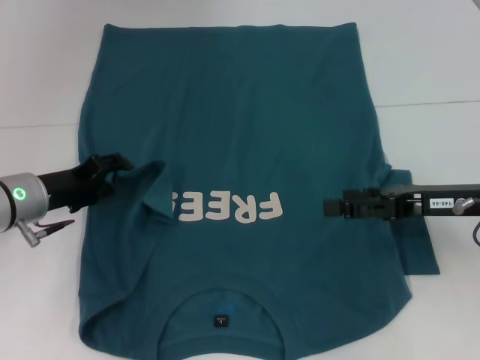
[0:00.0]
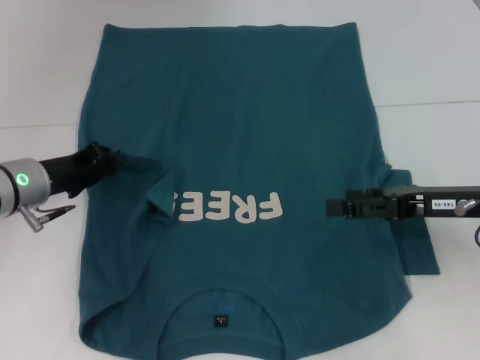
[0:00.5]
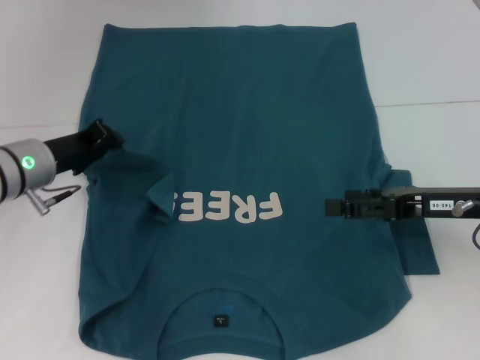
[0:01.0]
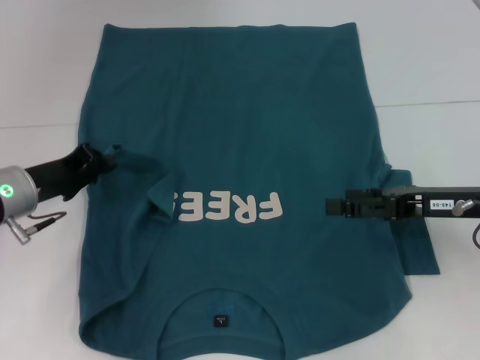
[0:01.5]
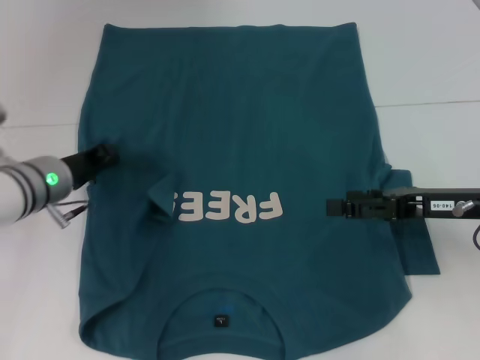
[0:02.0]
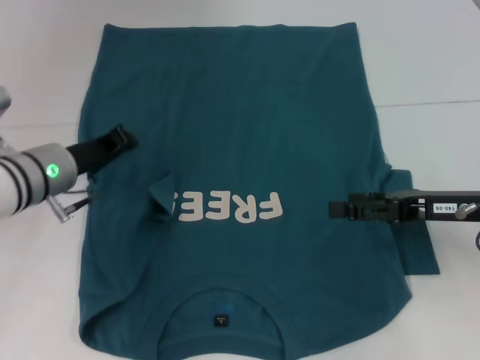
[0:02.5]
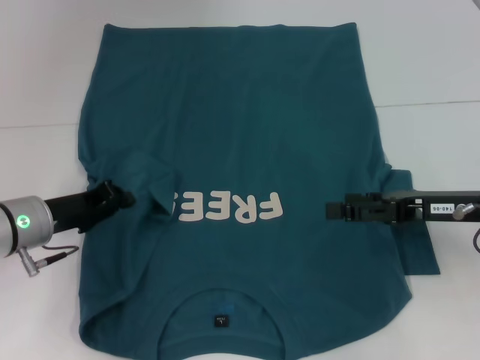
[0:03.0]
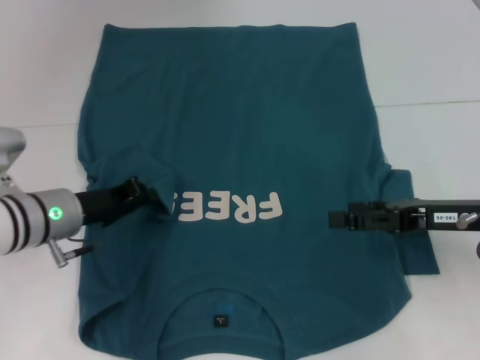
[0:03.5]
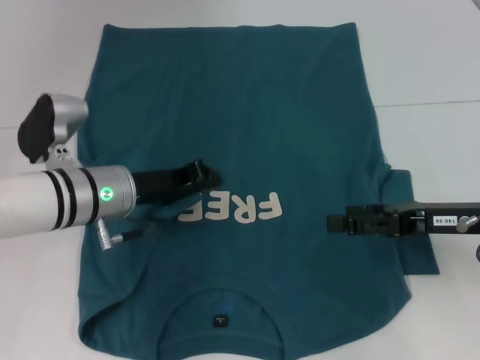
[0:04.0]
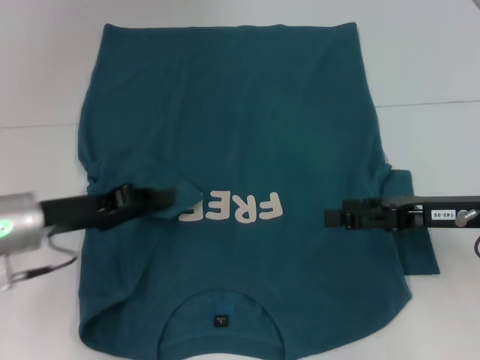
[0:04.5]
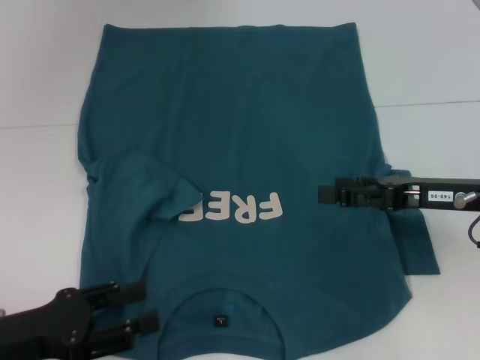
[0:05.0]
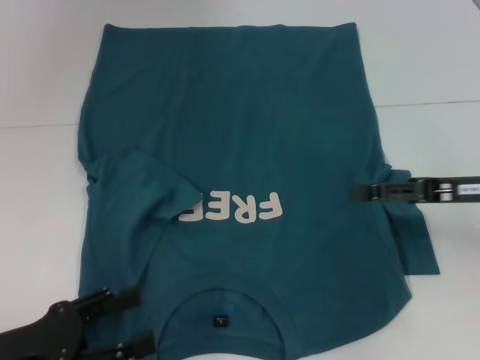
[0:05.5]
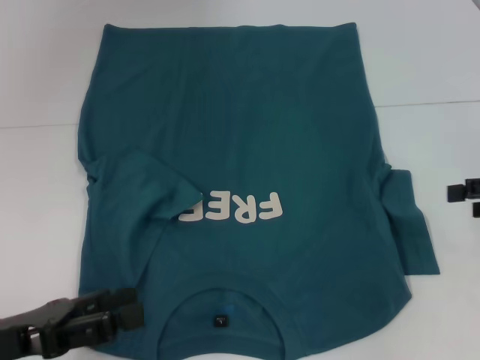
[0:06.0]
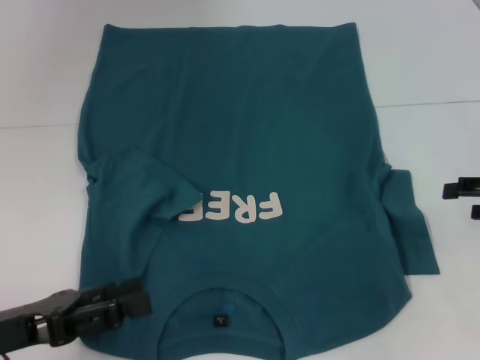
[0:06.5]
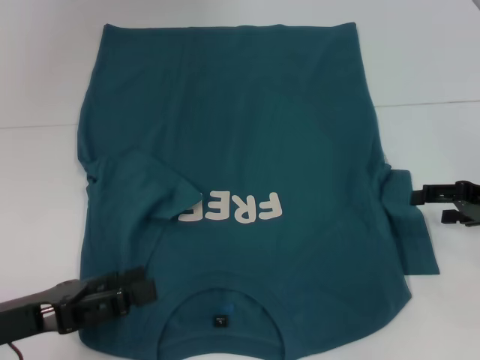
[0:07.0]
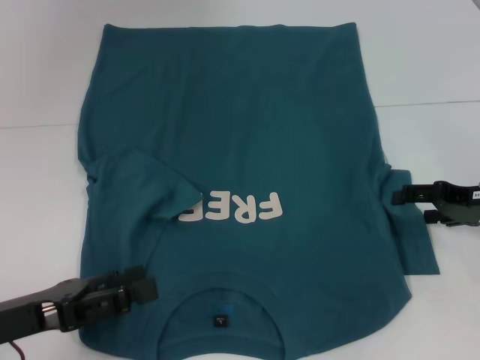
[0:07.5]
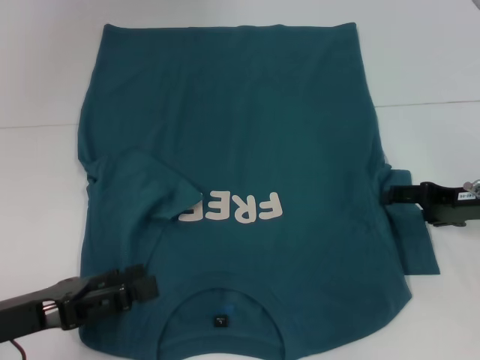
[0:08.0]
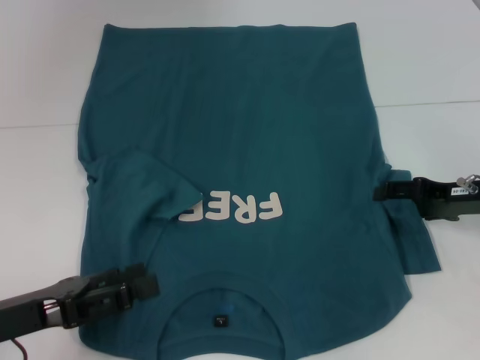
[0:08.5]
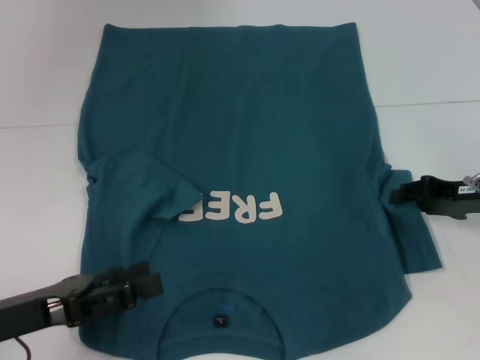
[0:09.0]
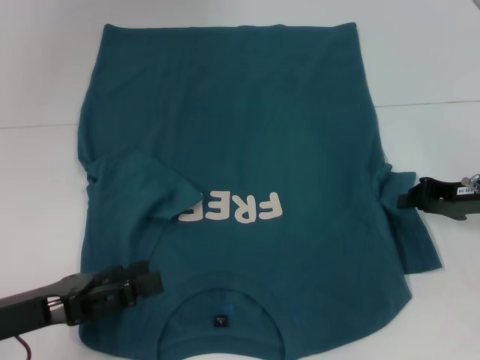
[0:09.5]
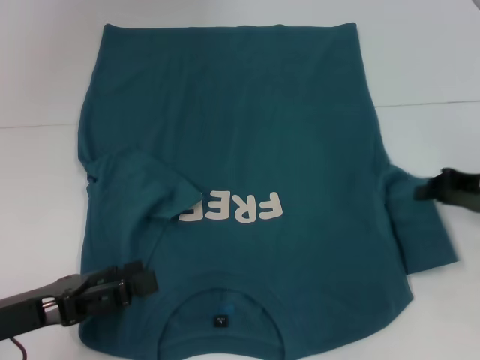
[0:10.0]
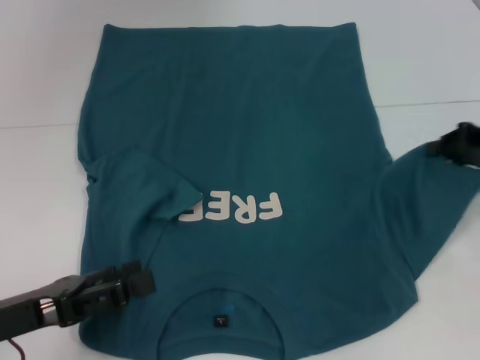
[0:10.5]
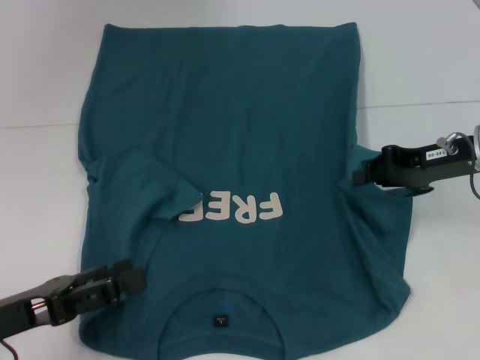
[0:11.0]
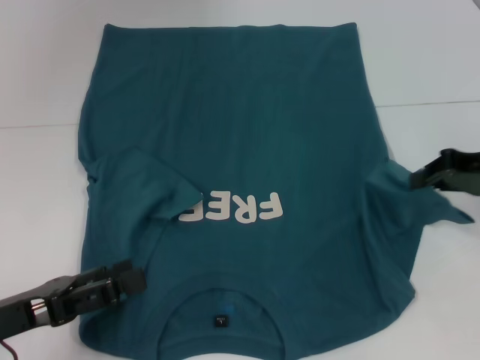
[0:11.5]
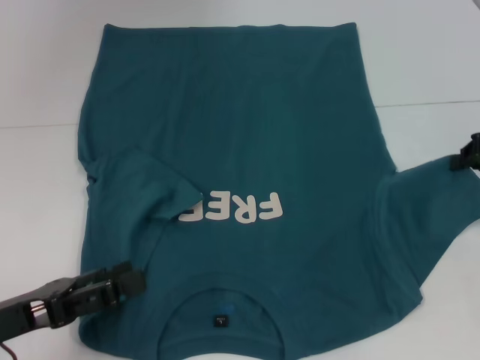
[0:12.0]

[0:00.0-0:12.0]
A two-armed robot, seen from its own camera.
Step, 0:00.0 to 0:04.5: Fold the bottom left sleeve with your left hand.
0:00.0 to 0:02.0: The left gripper closes.
0:02.0 to 0:04.0: The left gripper travels to the right by some 5 cm.
0:04.0 to 0:06.0: The right gripper shifts approximately 10 cm to the right. The left gripper travels backward and to the left by roughly 20 cm, and opens up.
0:06.0 to 0:08.0: The right gripper moves downward and to the left, roughly 10 cm.
0:08.0 to 0:10.0: The right gripper closes its fingers.
0:10.0 to 0:12.0: The right gripper shifts approximately 5 cm upward, and travels to the left and back again, about 5 cm each way.

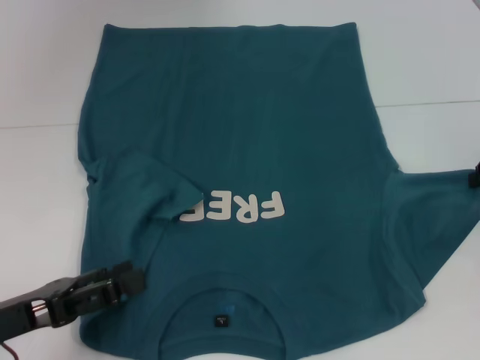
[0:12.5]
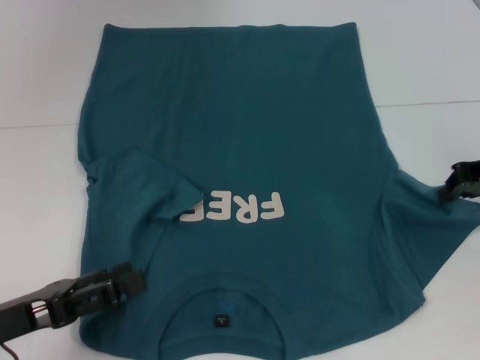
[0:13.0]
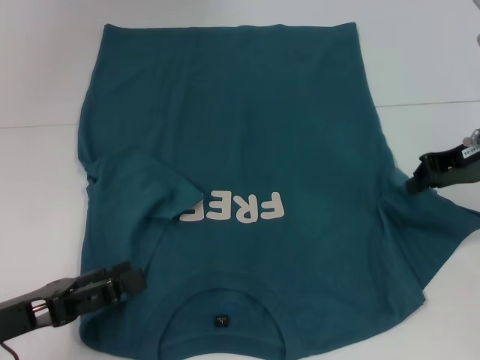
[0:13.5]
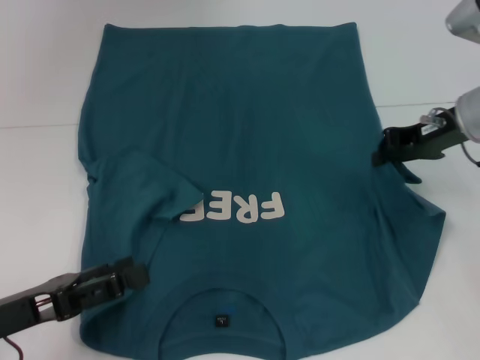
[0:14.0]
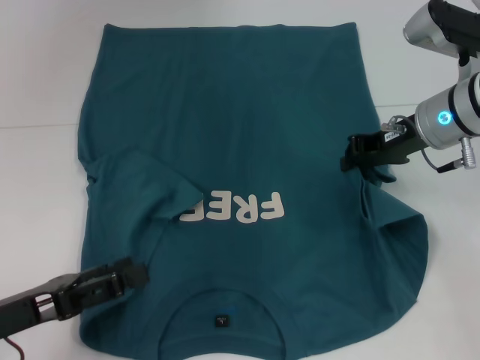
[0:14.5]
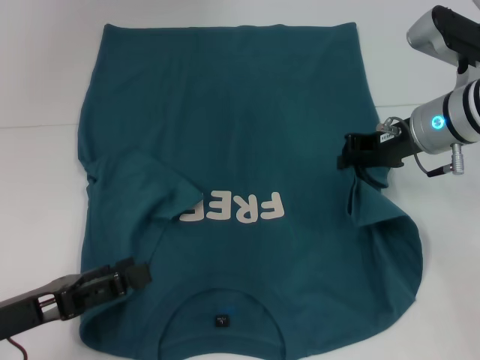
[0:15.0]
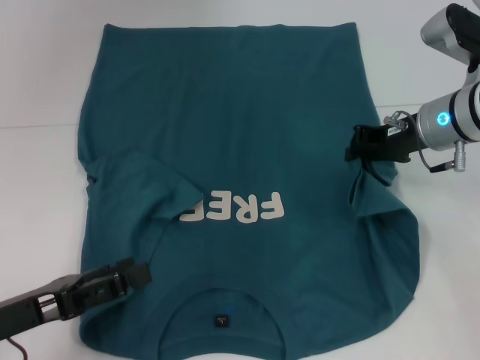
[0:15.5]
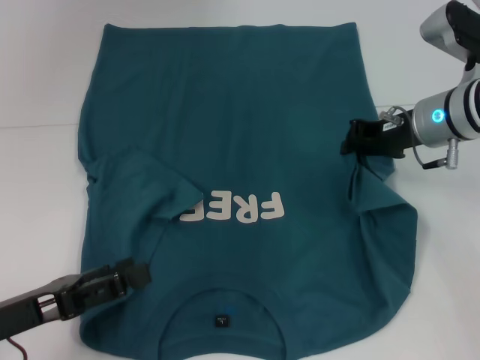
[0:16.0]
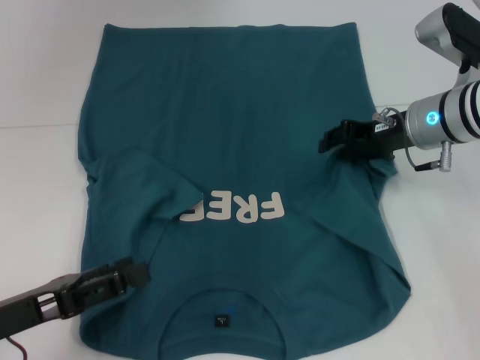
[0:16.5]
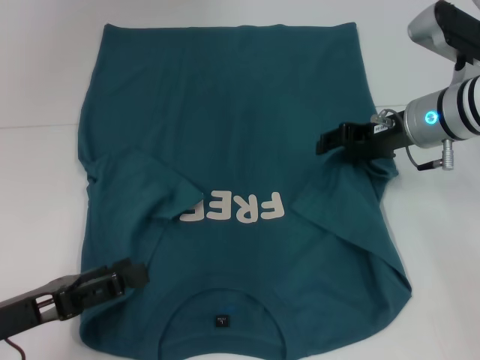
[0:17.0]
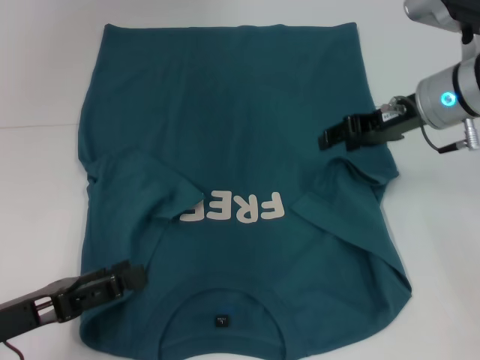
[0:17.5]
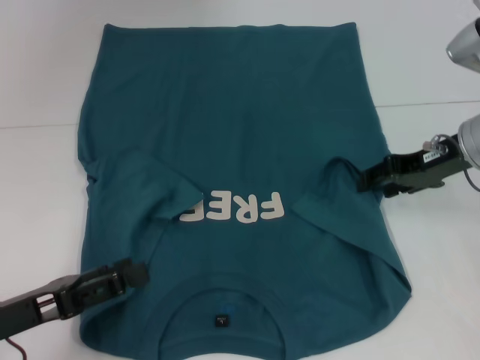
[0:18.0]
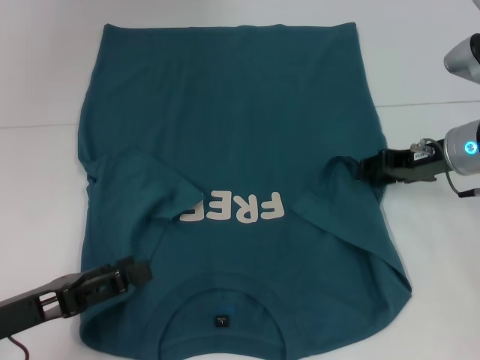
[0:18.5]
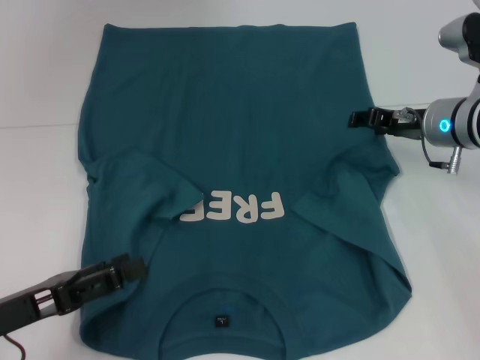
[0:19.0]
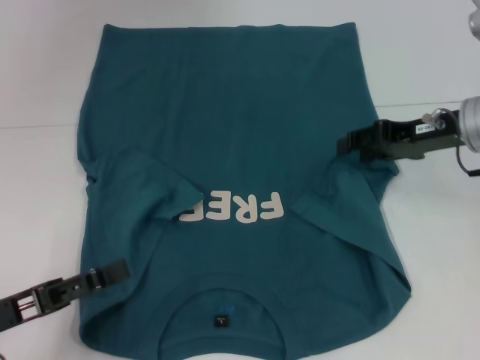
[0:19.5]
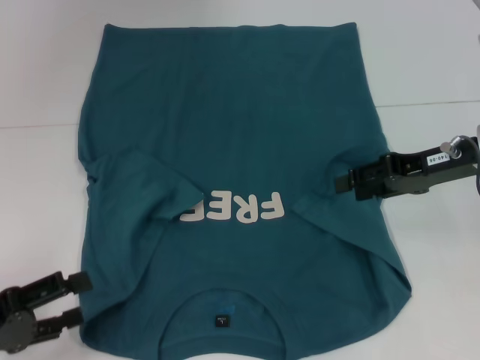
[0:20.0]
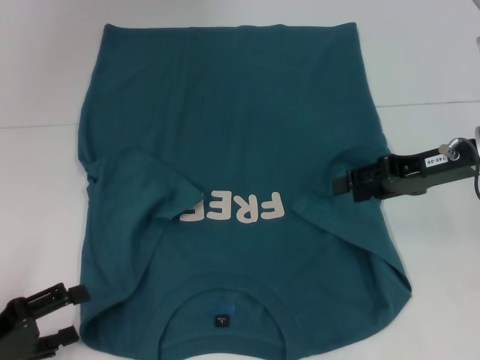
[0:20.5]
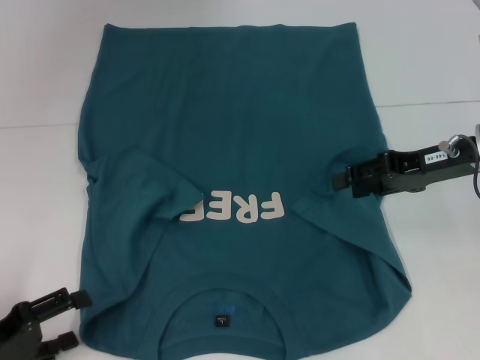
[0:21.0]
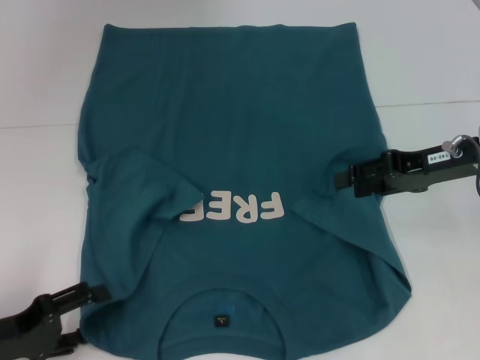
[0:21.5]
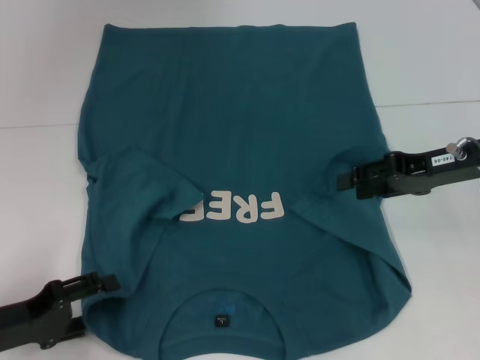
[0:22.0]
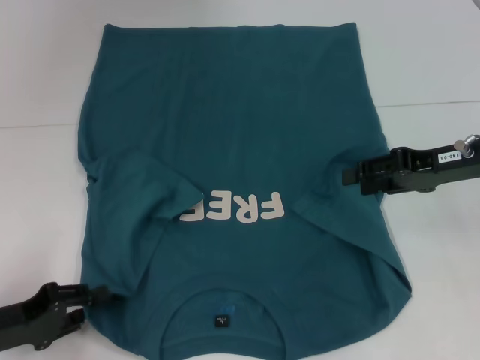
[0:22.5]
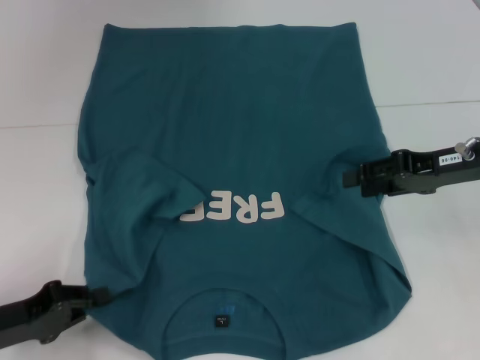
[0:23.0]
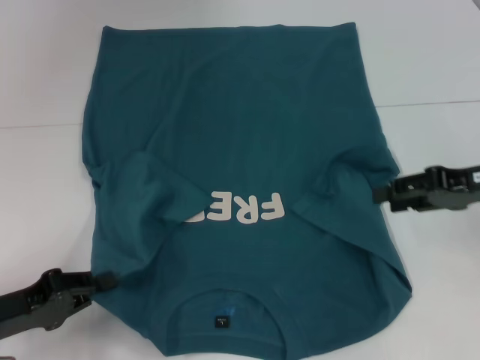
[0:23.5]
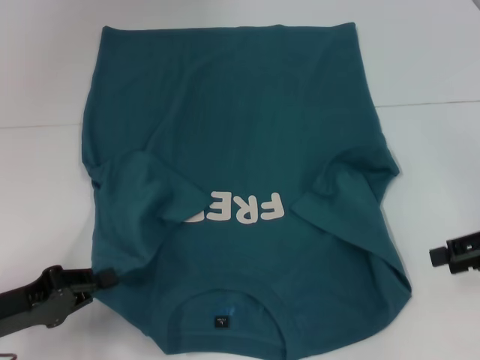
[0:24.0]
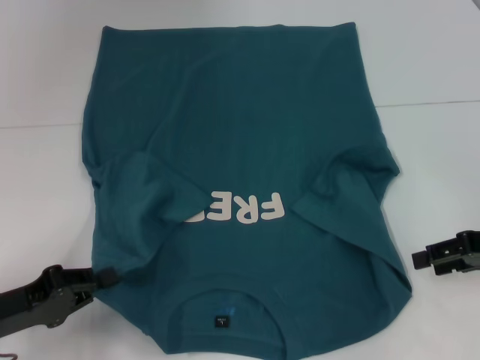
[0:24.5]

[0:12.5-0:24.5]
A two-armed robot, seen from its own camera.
Step, 0:12.5 to 0:19.5: Fold the bottom right sleeve to the right.
Step, 0:20.0 to 0:22.5: Grab the bottom left corner with your left hand.
0:12.5 to 0:14.5: The right gripper is displaced to the left by roughly 15 cm.
0:14.5 to 0:16.5: The right gripper opens up.
0:16.5 to 0:18.5: There are only small adjustments of the grippers.
0:18.5 to 0:20.5: The right gripper ends up roughly 5 cm from where it was, while the left gripper travels to the left by some 5 cm.
0:20.5 to 0:22.5: The left gripper closes its fingers.
0:22.5 to 0:24.5: The left gripper closes up. Meanwhile the right gripper moves to the right, roughly 5 cm.

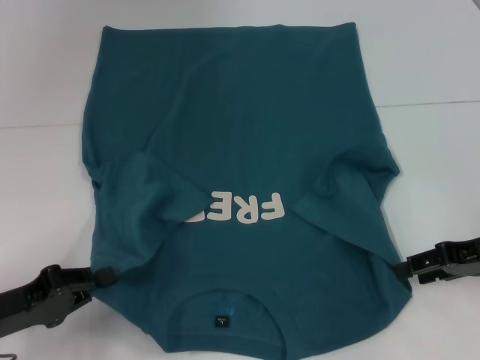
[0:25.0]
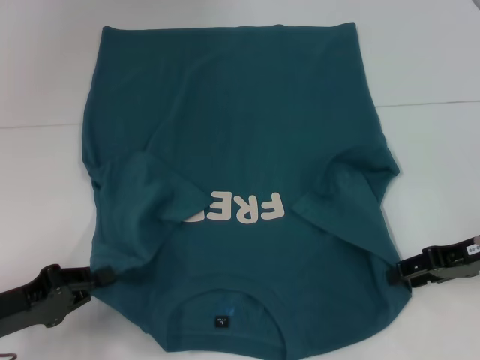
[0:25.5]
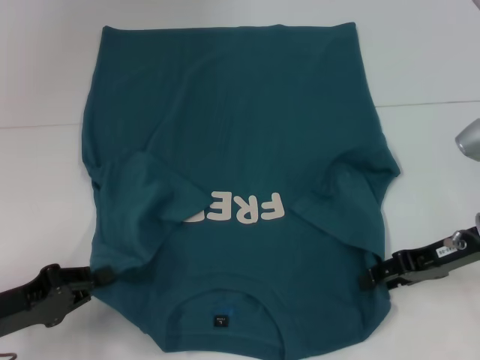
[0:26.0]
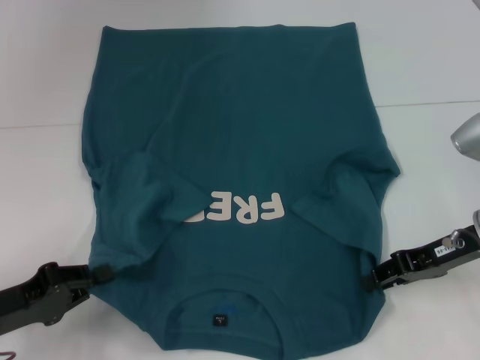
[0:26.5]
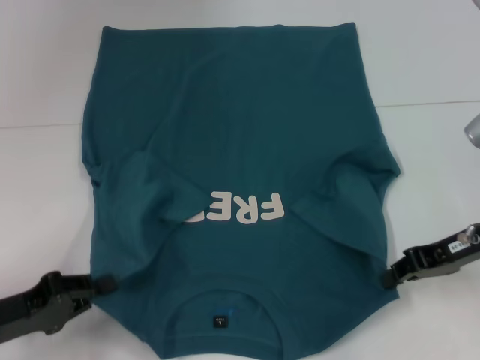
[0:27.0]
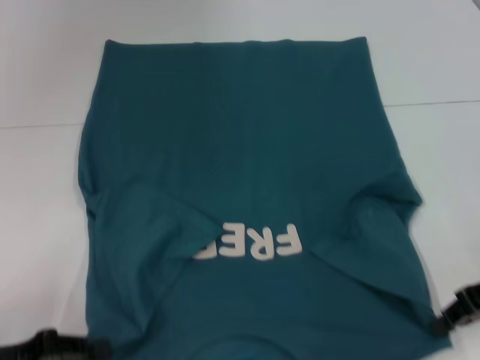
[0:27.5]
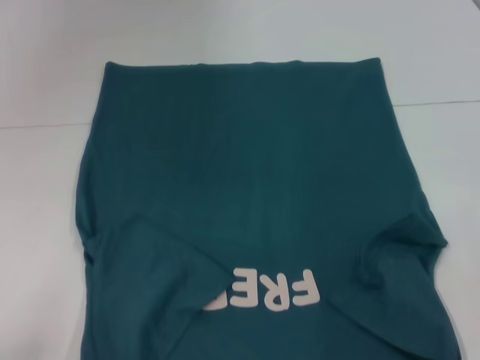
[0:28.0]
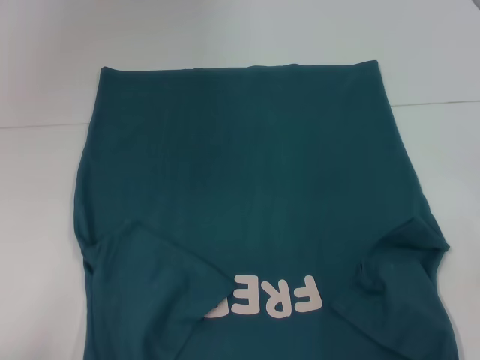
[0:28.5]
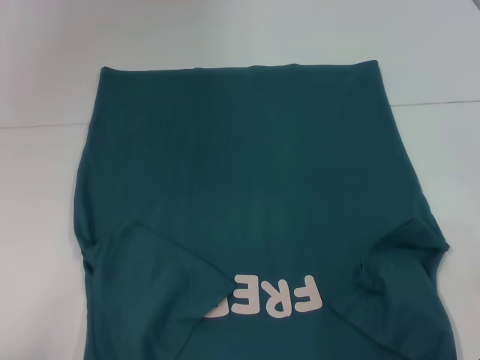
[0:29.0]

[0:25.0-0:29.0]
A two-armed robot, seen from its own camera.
Step, 0:25.0 to 0:27.0: Grab the bottom right corner with your right hand.
0:25.0 to 0:27.0: The right gripper closes.
0:27.0 to 0:29.0: The two grippers go some 5 cm backward.
